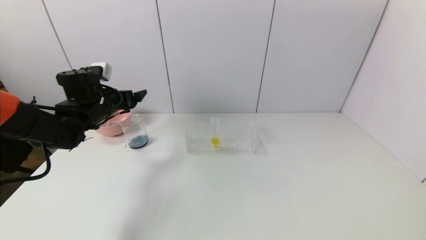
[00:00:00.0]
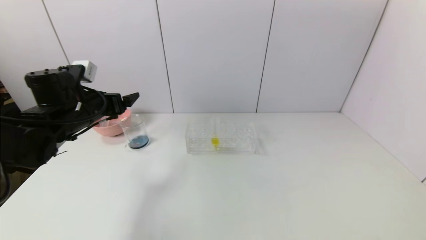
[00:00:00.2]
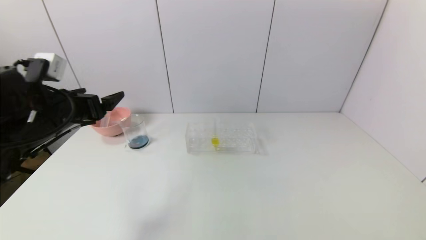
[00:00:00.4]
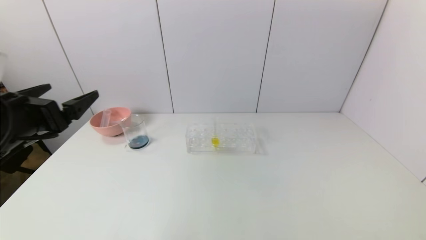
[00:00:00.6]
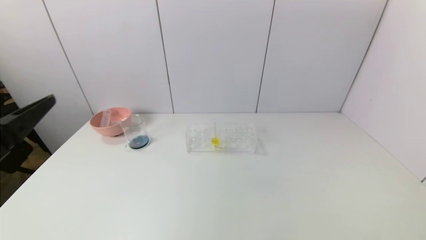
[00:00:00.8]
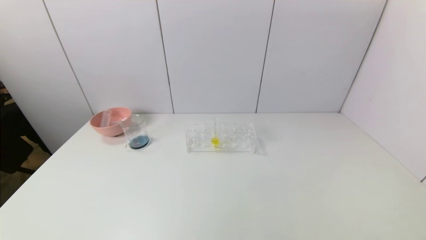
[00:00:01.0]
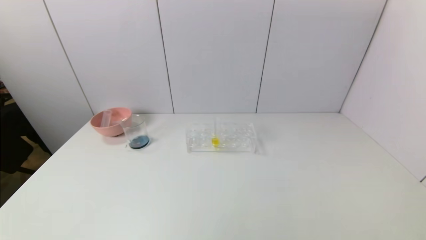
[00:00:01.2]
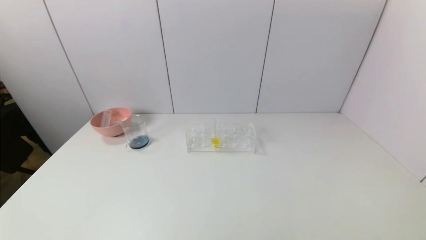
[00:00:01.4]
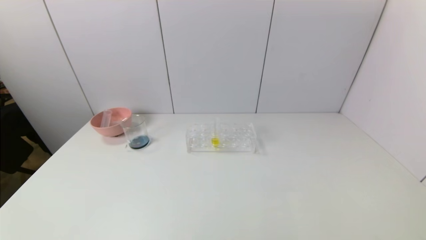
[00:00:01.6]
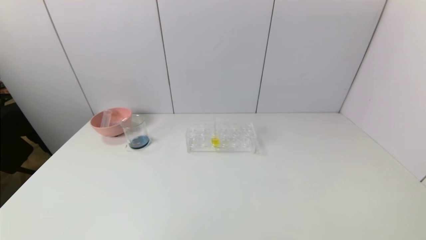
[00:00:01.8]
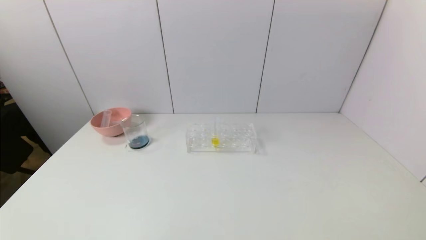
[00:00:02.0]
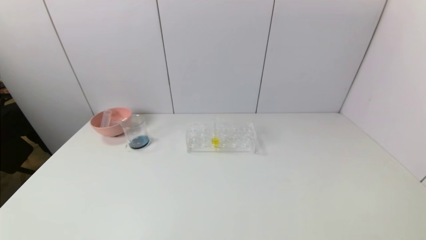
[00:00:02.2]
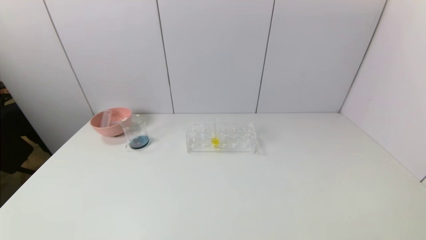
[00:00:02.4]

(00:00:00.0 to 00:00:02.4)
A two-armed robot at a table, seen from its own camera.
Task of the whole recording: pick up the test tube with red pigment and the test tube with blue pigment by grippers and pour them into the container.
00:00:00.0 - 00:00:01.2: The left gripper is displaced backward by roughly 40 cm.
